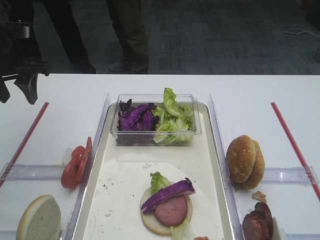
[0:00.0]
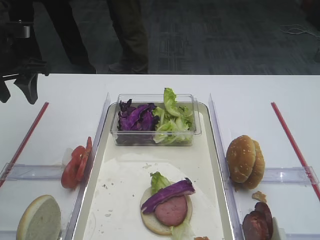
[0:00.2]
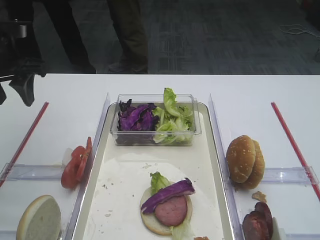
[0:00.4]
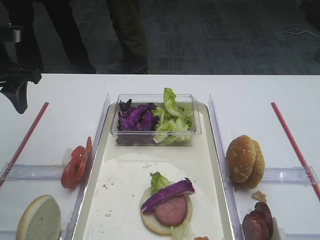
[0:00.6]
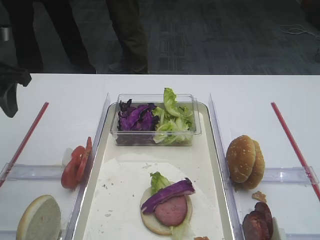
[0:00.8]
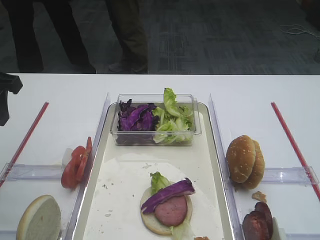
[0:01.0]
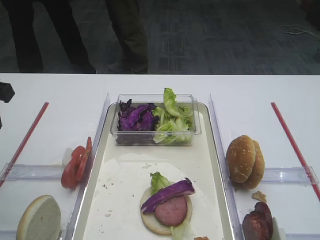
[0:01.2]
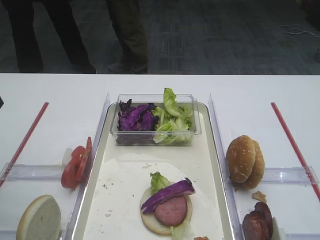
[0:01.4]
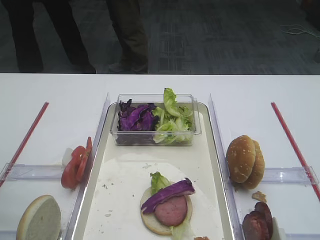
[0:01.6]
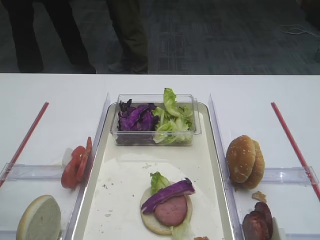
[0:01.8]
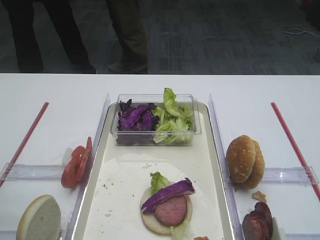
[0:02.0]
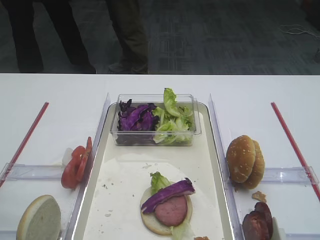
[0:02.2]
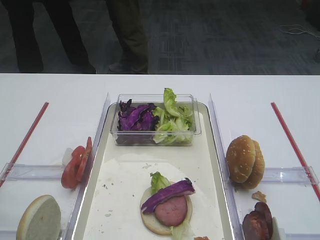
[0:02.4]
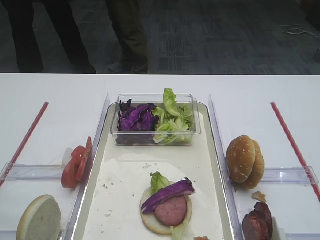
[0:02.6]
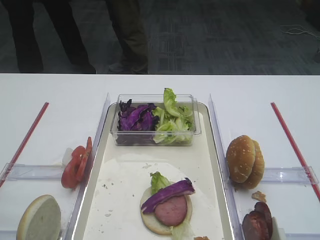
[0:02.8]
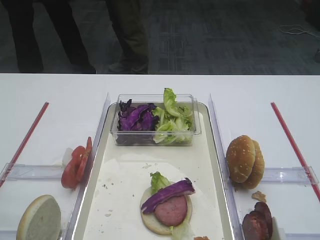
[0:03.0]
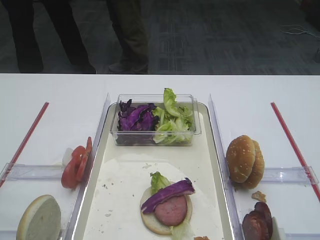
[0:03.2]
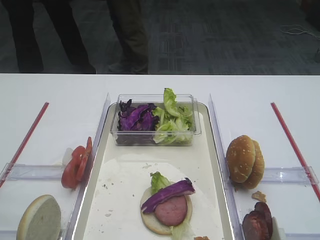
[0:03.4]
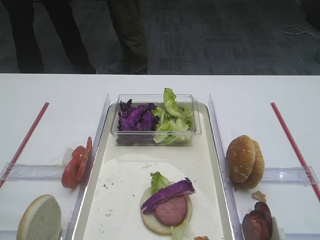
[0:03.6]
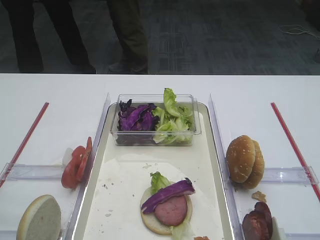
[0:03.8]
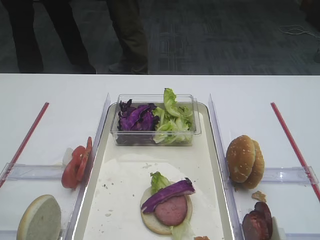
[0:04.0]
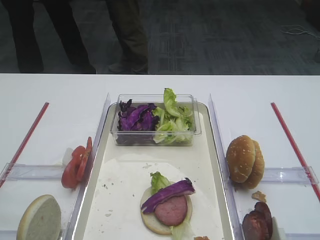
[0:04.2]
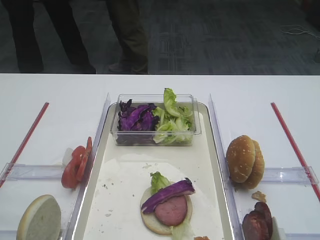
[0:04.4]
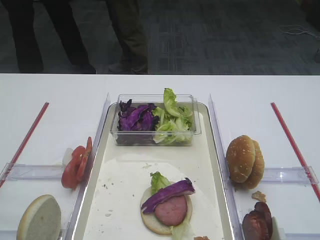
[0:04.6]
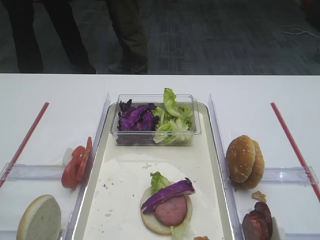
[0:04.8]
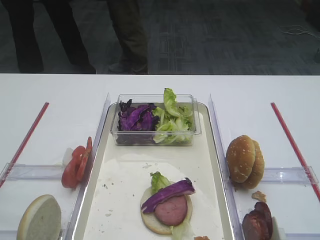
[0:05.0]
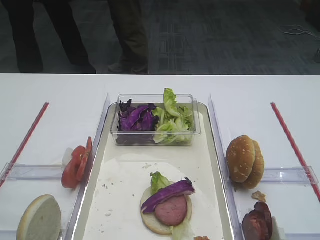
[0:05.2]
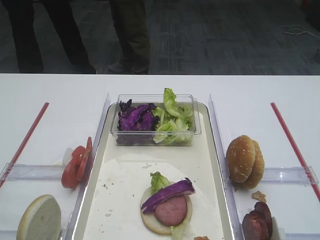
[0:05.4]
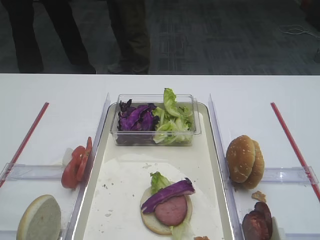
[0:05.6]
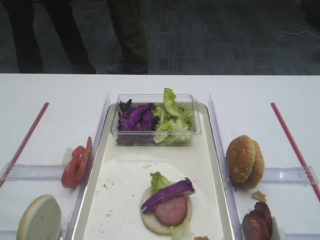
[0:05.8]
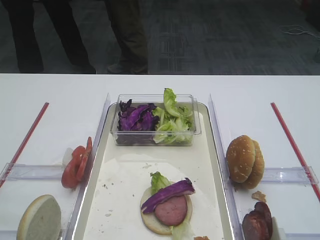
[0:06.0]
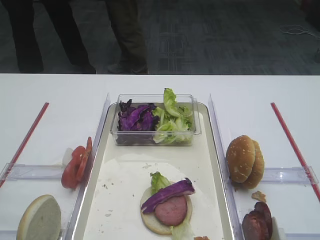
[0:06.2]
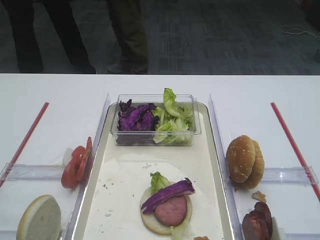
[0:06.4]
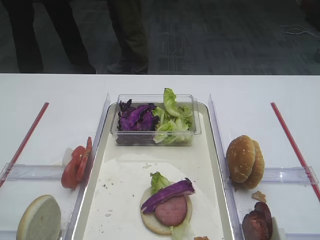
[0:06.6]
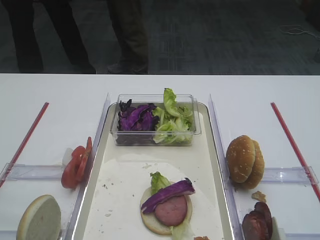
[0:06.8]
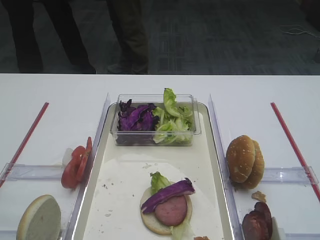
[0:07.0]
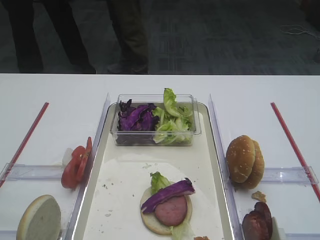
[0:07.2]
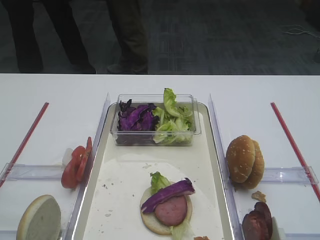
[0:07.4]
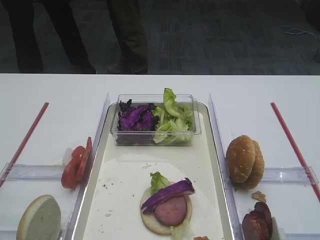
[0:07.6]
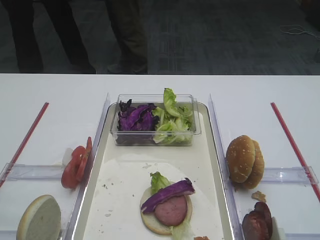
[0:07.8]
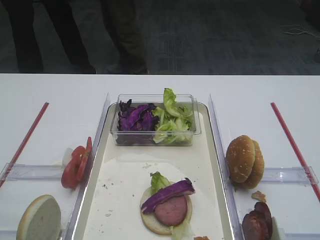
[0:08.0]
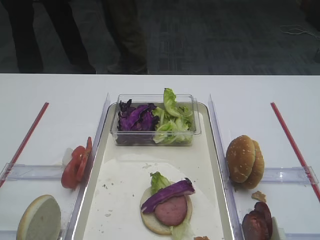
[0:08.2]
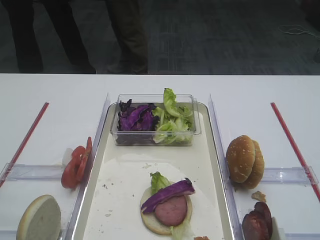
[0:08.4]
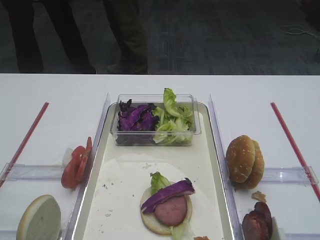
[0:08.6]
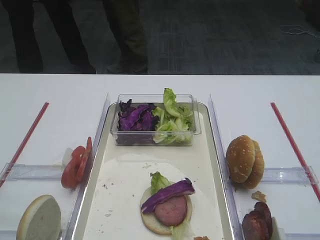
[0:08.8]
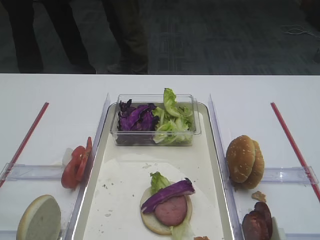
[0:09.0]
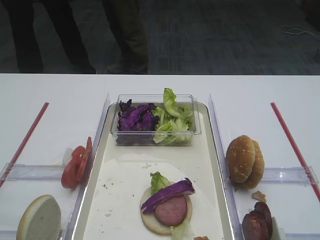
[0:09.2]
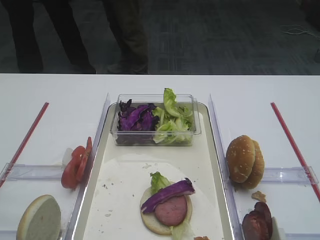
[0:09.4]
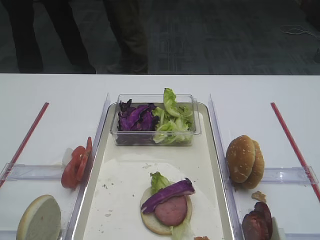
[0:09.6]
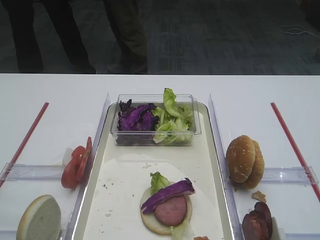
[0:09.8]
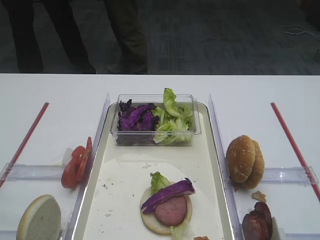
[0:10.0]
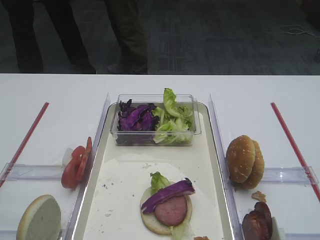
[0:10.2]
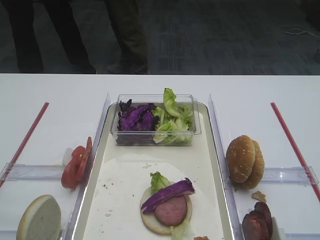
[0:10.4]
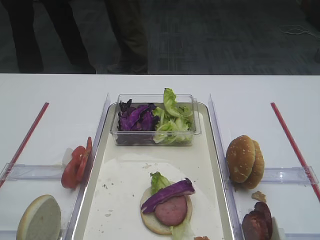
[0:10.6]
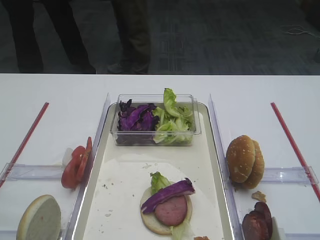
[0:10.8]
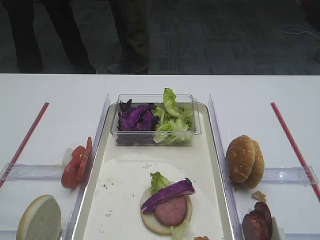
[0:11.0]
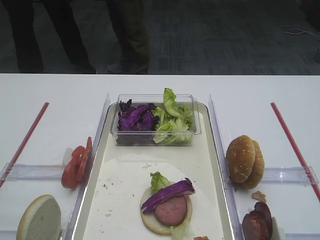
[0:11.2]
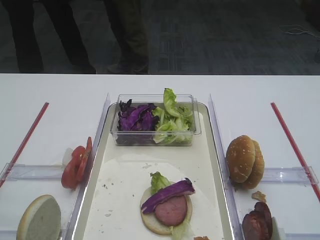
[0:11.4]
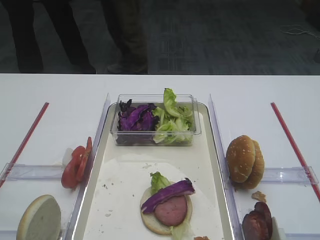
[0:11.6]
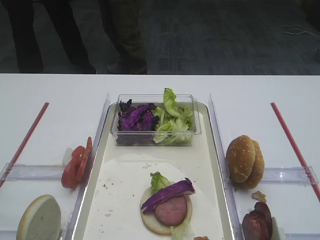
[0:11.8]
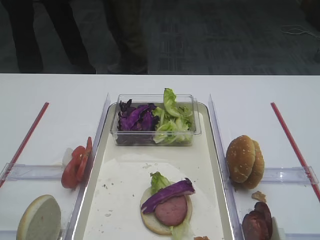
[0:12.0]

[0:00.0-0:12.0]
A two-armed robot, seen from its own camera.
0:00.0 to 0:01.6: The left gripper heads backward, covering roughly 15 cm.
0:06.0 to 0:12.0: Both grippers stay about where they are.

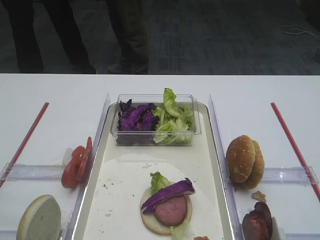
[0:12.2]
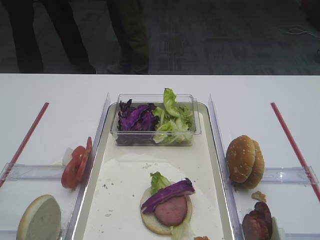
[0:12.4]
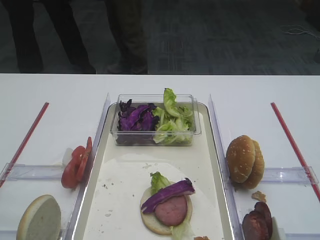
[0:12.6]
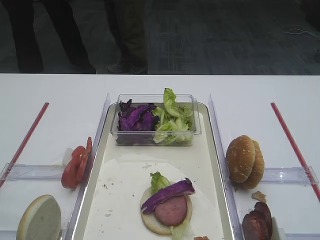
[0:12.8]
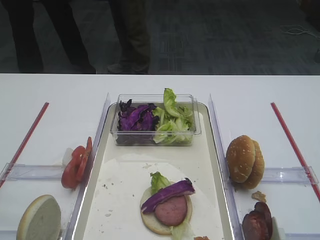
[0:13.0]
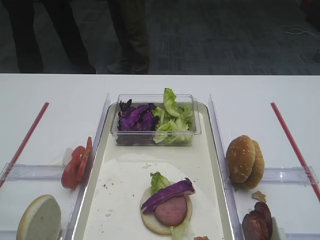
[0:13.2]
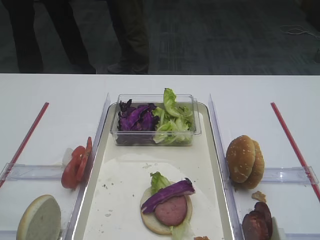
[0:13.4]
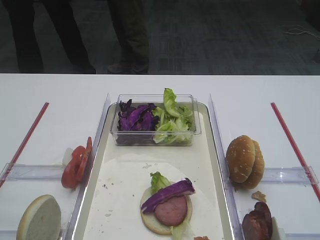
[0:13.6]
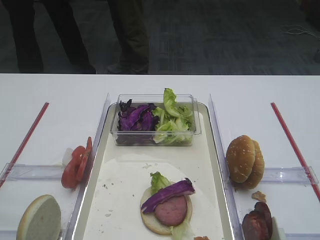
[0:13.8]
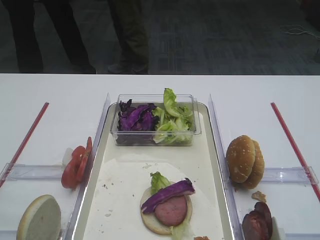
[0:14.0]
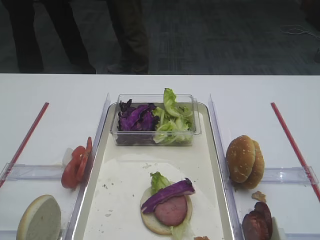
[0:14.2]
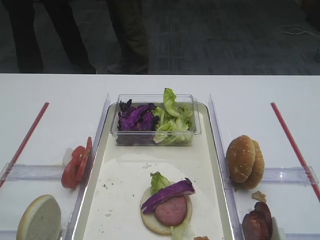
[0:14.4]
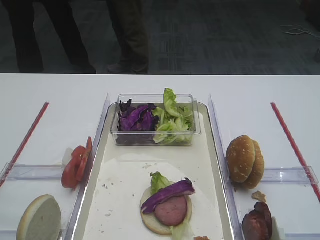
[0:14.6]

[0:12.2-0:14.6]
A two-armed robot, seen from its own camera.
0:12.2 to 0:14.6: Both grippers stay about where they are.

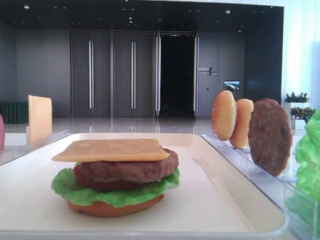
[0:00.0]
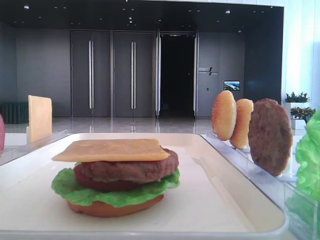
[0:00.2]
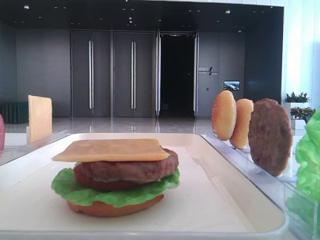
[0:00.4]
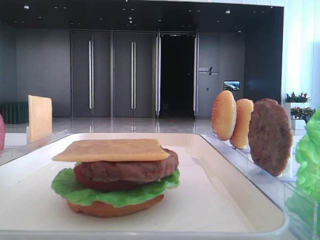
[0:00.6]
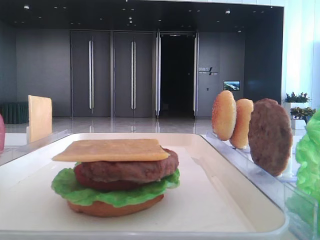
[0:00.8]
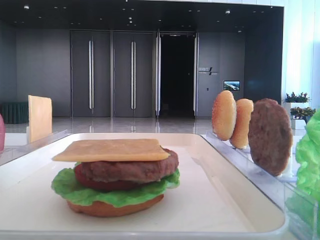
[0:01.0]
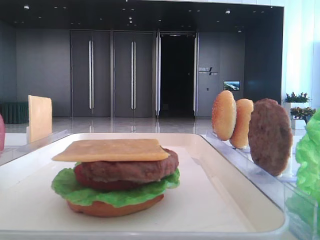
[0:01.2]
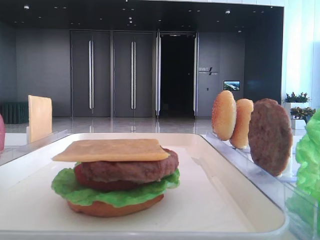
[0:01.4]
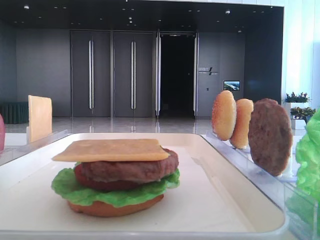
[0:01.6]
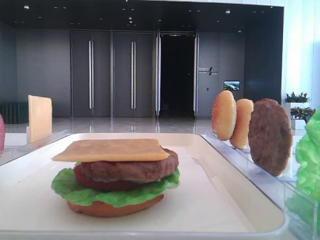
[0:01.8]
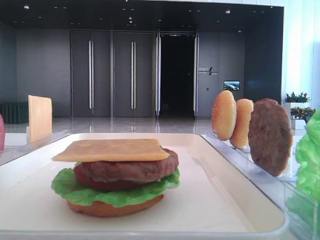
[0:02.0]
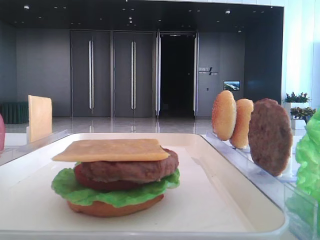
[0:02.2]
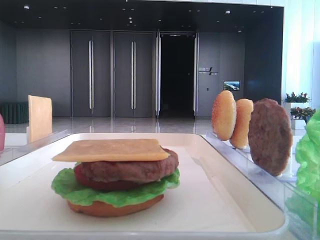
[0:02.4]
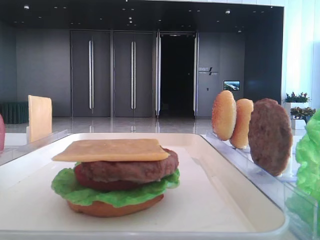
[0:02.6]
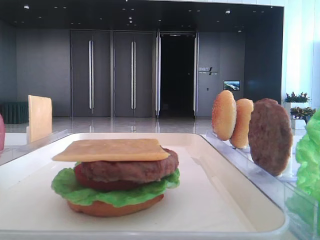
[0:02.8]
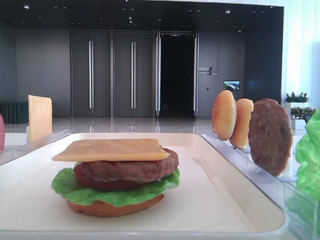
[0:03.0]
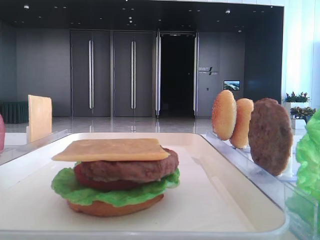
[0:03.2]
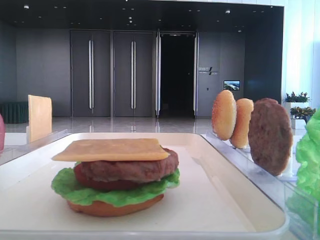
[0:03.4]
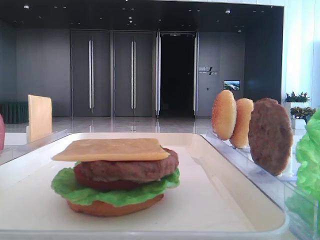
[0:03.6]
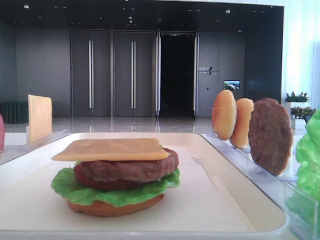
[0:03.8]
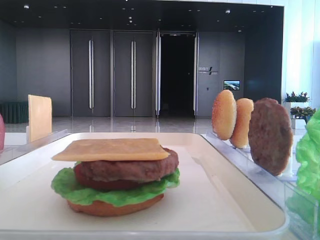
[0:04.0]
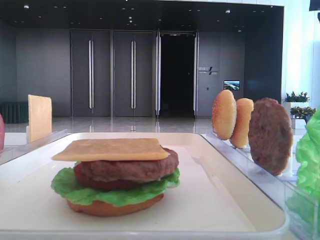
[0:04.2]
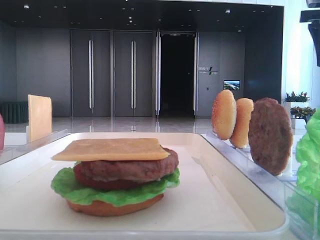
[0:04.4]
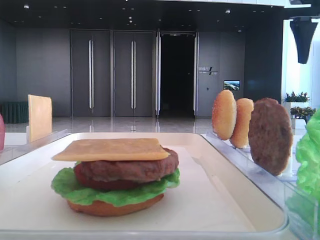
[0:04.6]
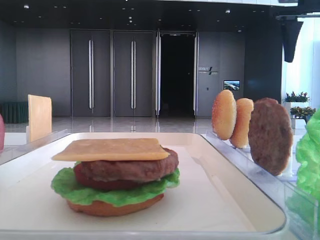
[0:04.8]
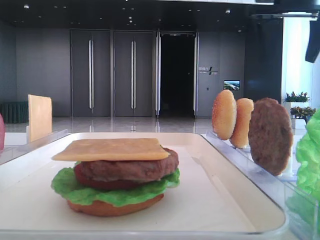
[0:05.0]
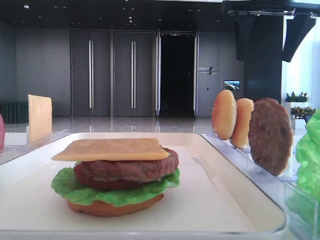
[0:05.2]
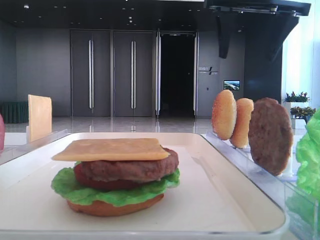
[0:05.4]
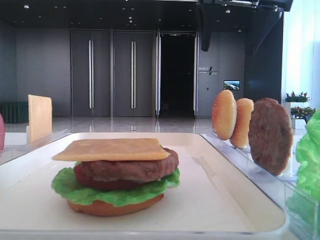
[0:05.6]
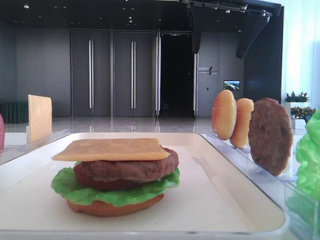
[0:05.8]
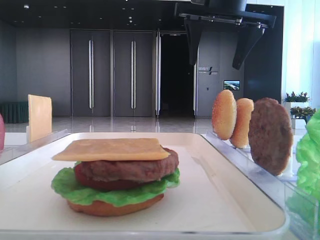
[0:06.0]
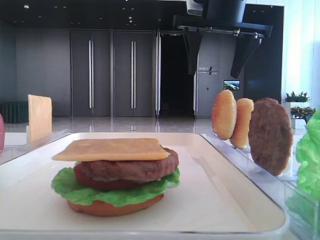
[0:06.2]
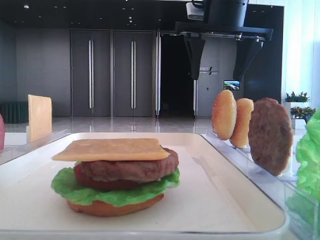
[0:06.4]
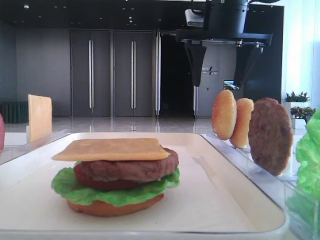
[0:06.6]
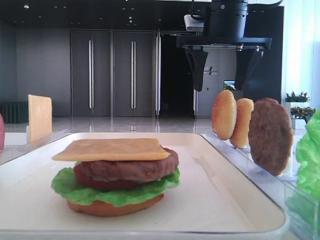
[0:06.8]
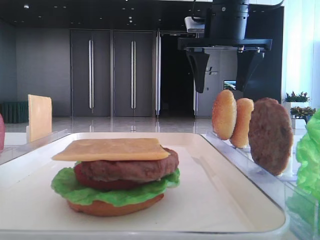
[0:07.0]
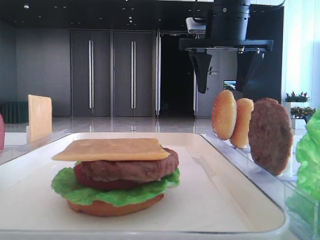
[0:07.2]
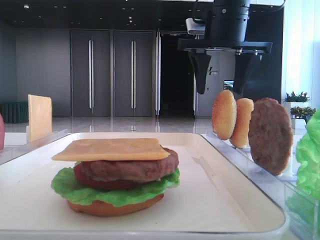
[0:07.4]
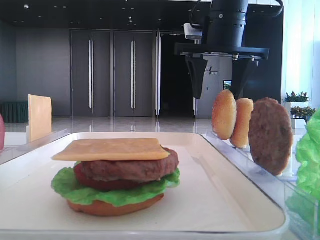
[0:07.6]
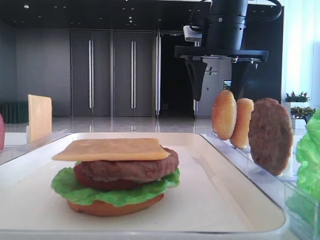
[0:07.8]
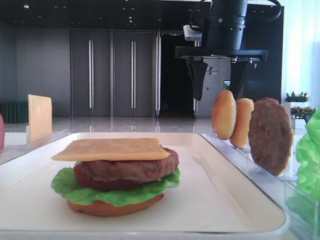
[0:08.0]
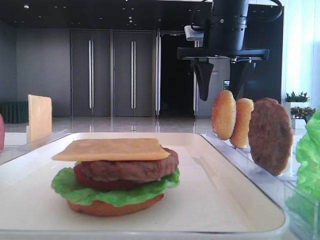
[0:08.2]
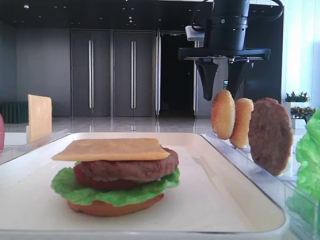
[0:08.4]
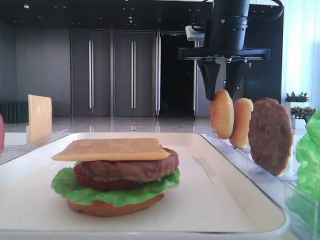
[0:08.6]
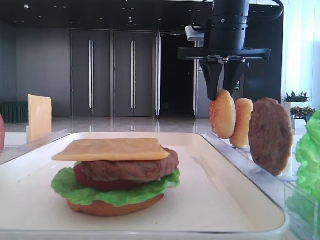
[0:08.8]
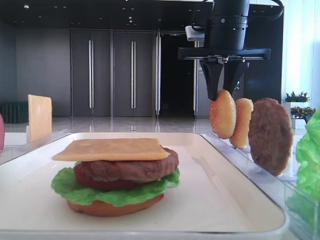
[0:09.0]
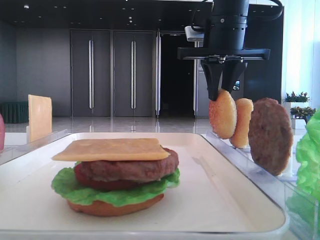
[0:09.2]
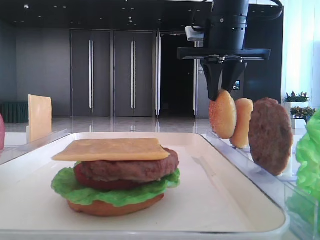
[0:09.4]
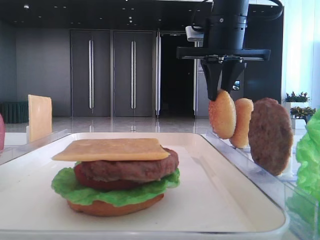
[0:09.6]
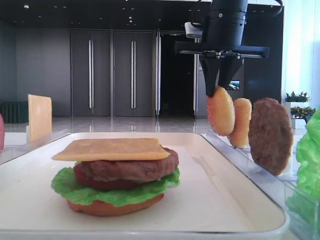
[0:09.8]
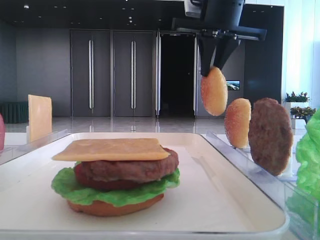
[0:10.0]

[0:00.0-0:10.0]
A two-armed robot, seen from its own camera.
Step, 0:00.0 to 0:09.0: Pick up the top bread slice with the right hand.
0:02.8 to 0:04.2: The right gripper travels forward by roughly 30 cm.
0:04.2 to 0:05.8: The right gripper shifts roughly 20 cm to the left.
0:05.8 to 0:07.2: The right gripper moves downward, some 5 cm.
0:07.2 to 0:08.6: The right gripper closes its fingers.
0:08.6 to 0:10.0: The right gripper closes its fingers.
